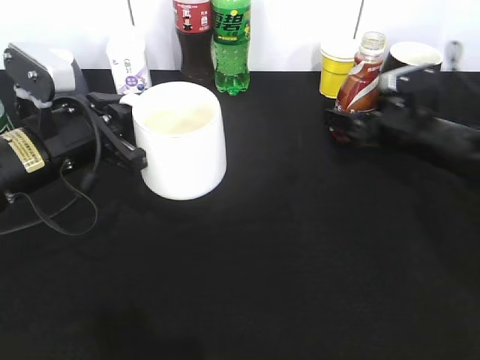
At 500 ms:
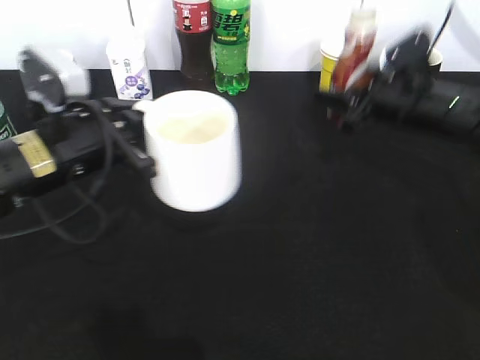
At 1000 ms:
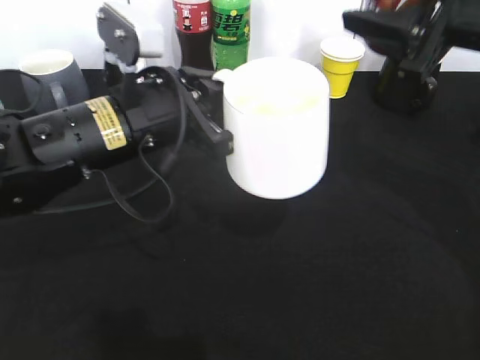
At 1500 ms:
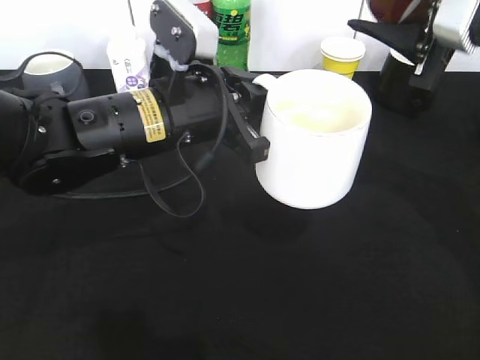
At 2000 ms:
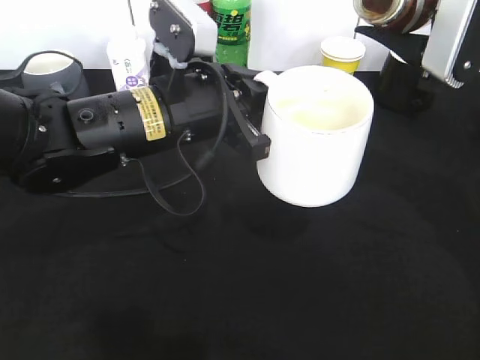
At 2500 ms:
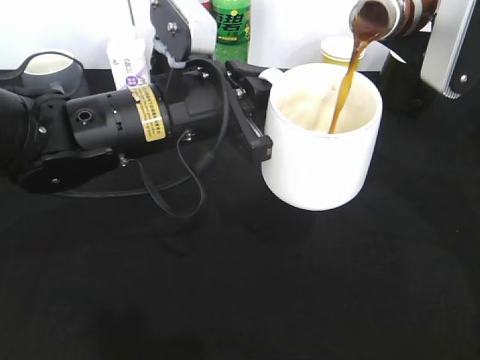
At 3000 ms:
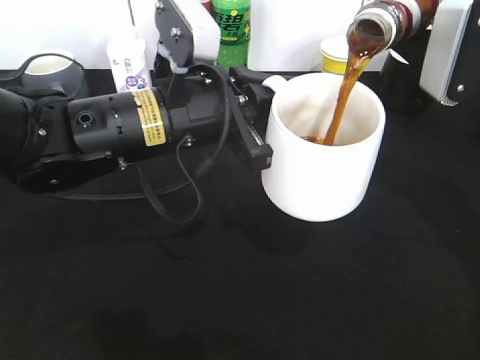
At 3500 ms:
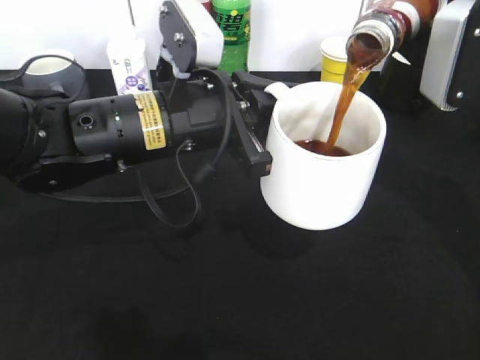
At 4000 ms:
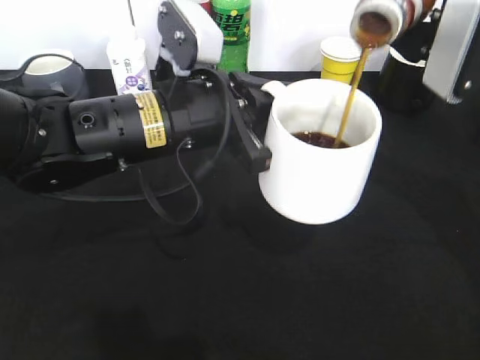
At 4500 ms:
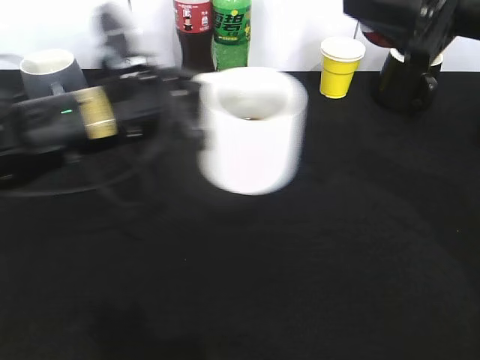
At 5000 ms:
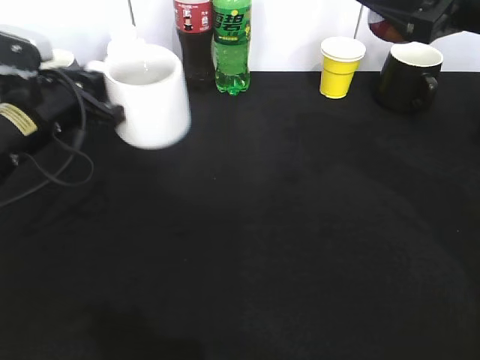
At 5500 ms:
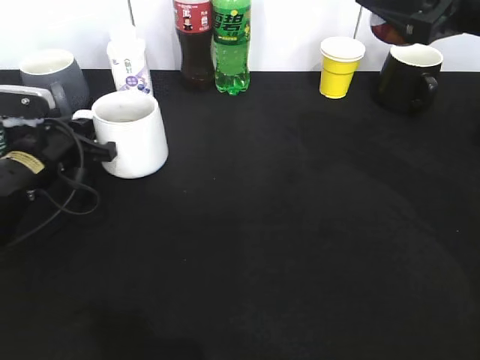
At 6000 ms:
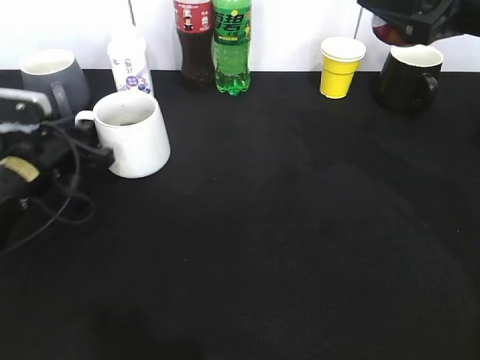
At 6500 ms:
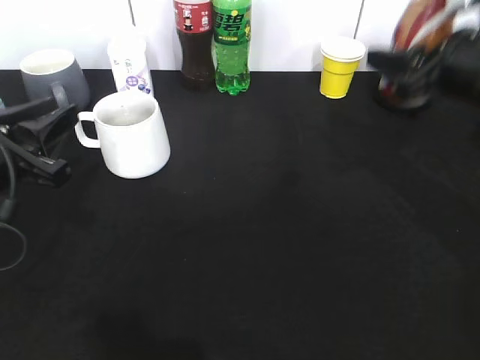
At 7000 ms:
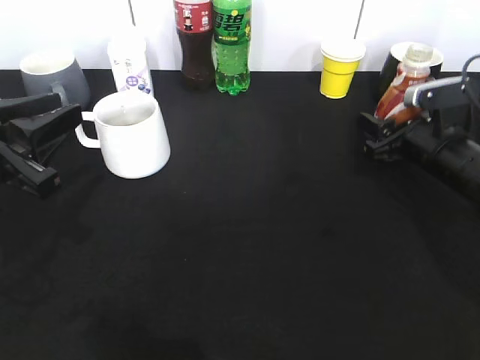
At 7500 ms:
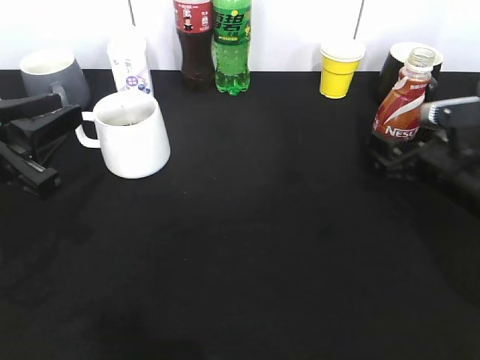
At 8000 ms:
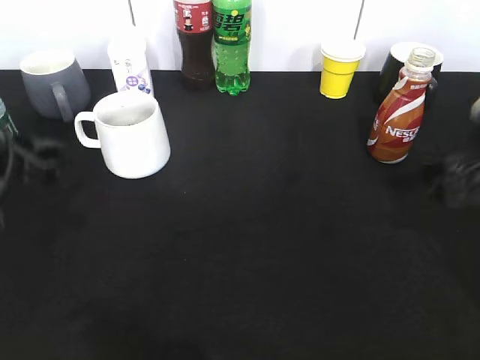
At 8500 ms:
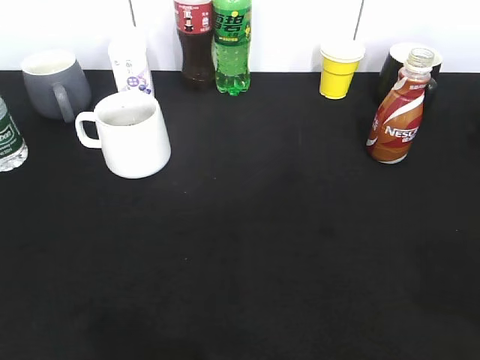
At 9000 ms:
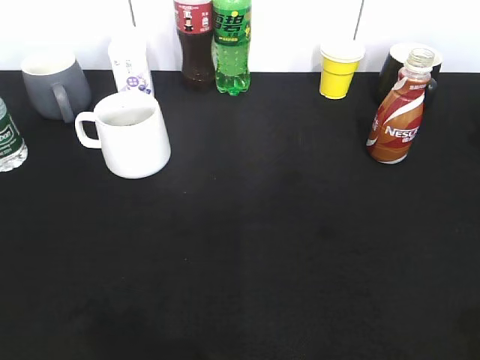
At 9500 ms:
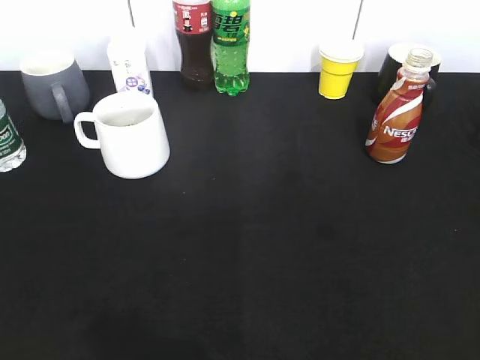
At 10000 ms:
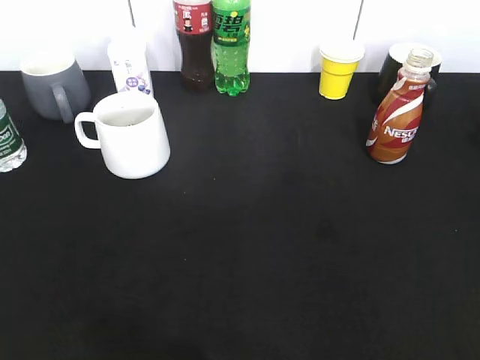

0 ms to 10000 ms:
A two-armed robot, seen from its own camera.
Step, 500 ms to 4000 ms: Pour the coffee from bottle to cup with right gripper.
Step, 4500 ms to 6000 ms: Place the white cup on the table with left gripper.
Step, 6500 ms to 7500 ms: Place the coffee bottle on the table with right gripper.
0 ms to 2000 ms: The left gripper travels to the right by about 10 cm, while the right gripper travels upward and backward by roughly 20 cm, and closes its fingers.
2000 ms to 4000 ms: There are only small adjustments of the grippers.
4000 ms to 6000 ms: The left gripper heads to the left and downward, covering approximately 20 cm, and opens up.
6000 ms to 8000 ms: The left gripper goes about 15 cm upward and backward, while the right gripper moves downward, to the right and backward, roughly 15 cm, and opens its fingers.
8000 ms to 10000 ms: The right gripper shifts approximately 25 cm backward and upward, while the left gripper is displaced backward by about 25 cm.
